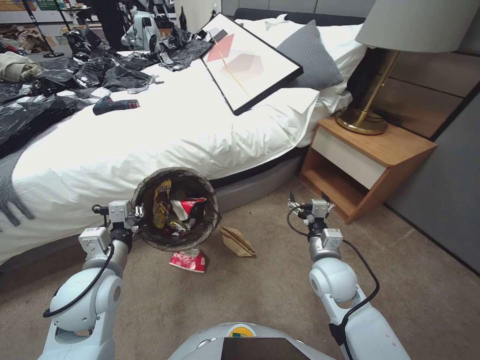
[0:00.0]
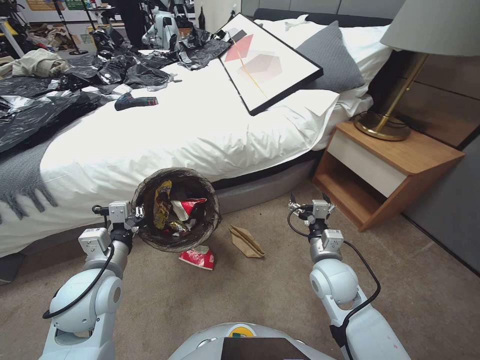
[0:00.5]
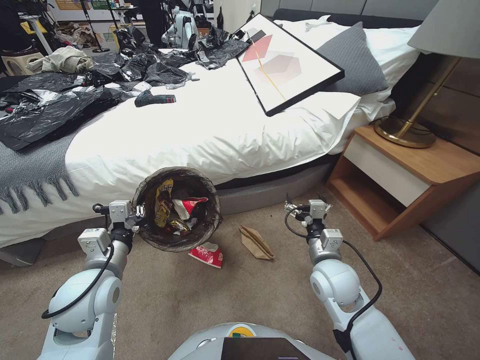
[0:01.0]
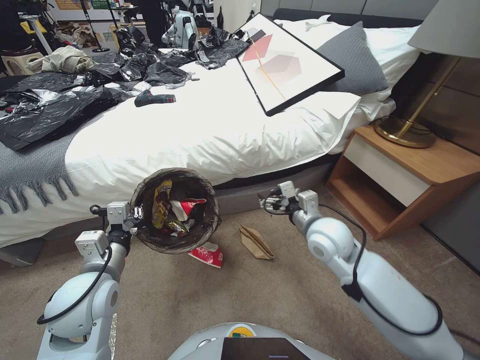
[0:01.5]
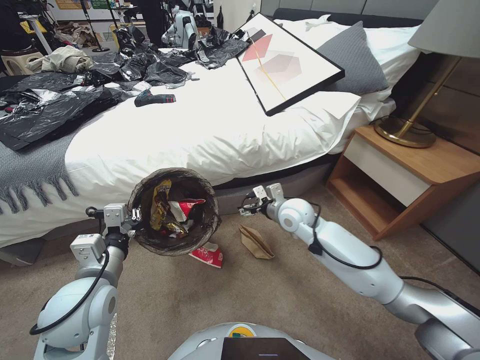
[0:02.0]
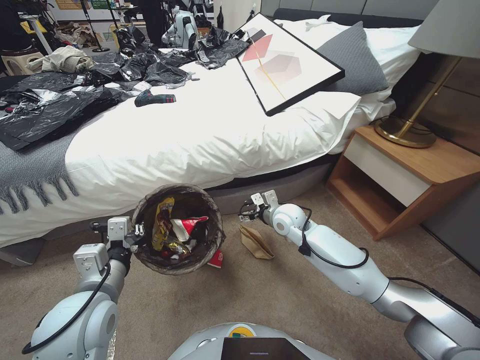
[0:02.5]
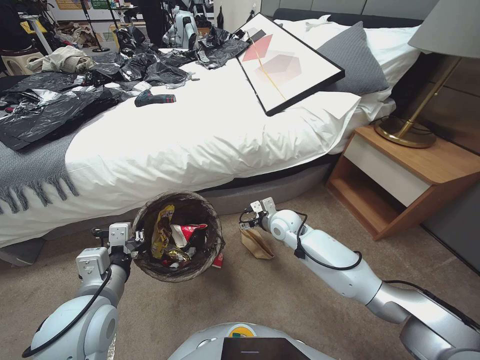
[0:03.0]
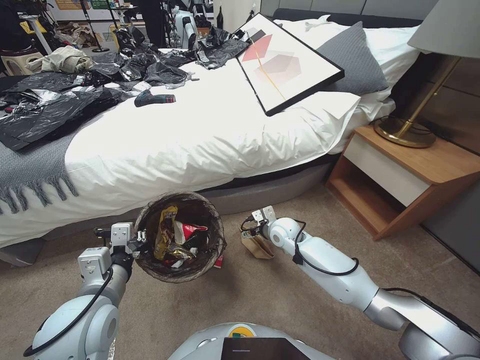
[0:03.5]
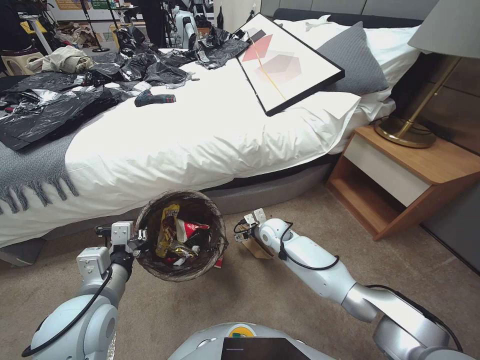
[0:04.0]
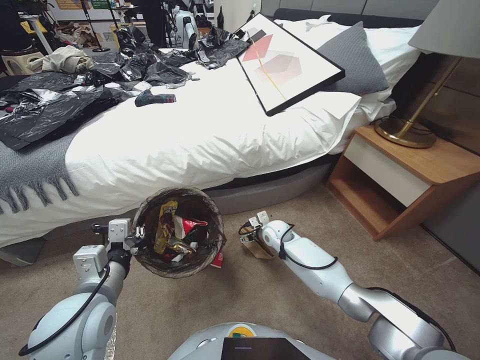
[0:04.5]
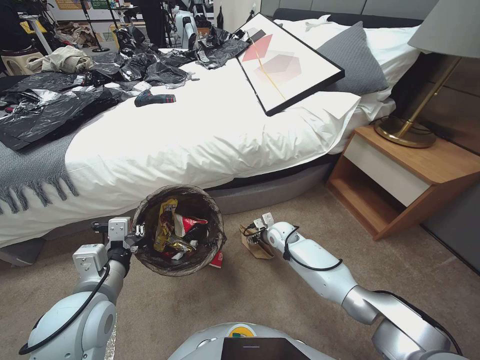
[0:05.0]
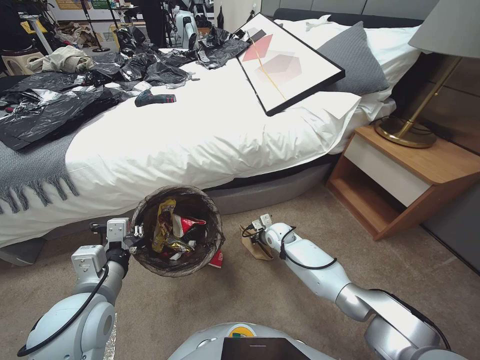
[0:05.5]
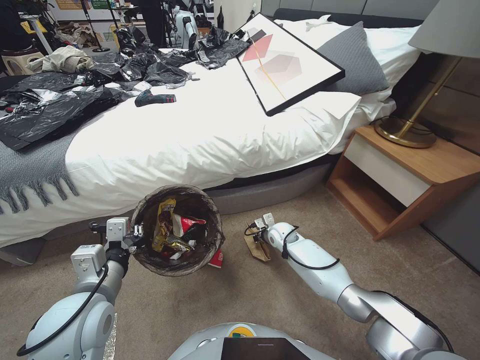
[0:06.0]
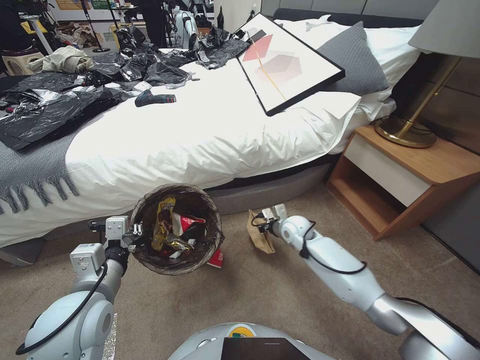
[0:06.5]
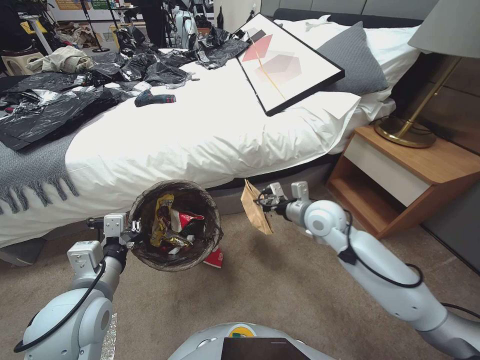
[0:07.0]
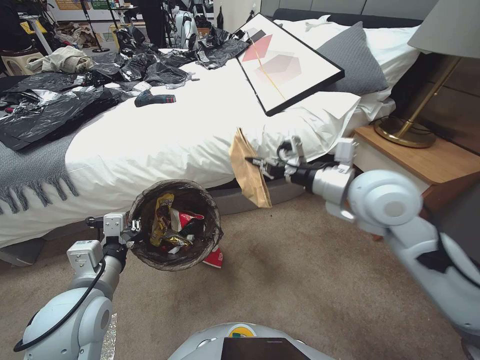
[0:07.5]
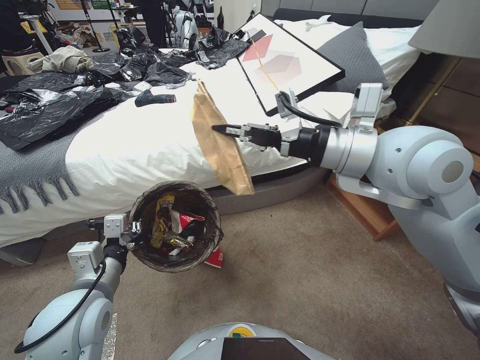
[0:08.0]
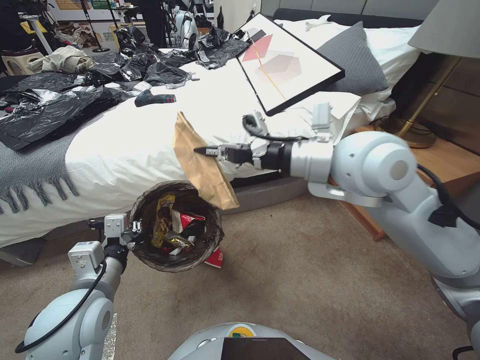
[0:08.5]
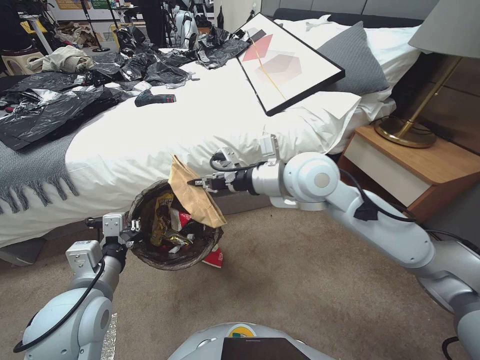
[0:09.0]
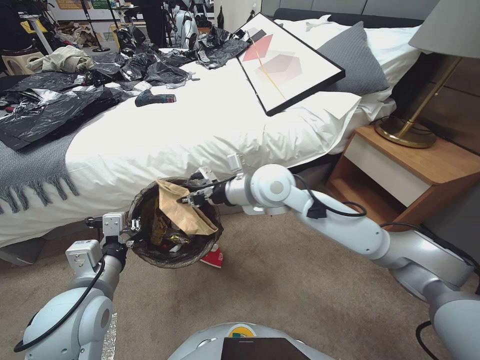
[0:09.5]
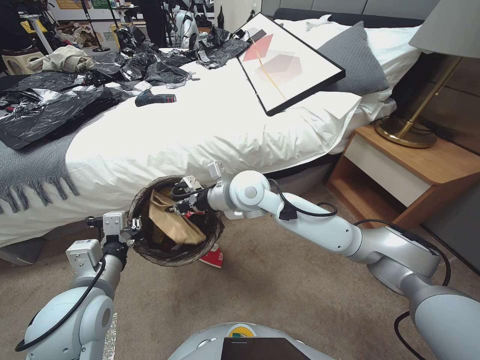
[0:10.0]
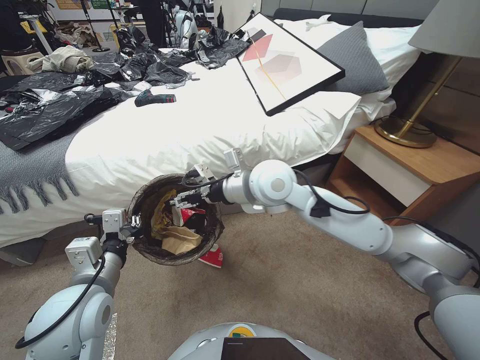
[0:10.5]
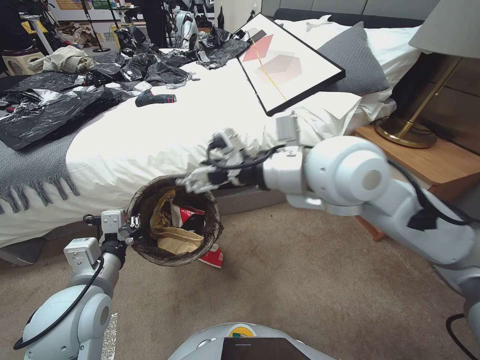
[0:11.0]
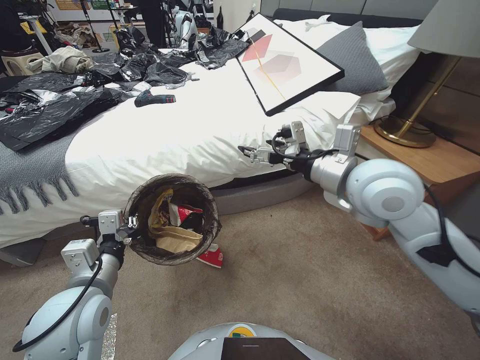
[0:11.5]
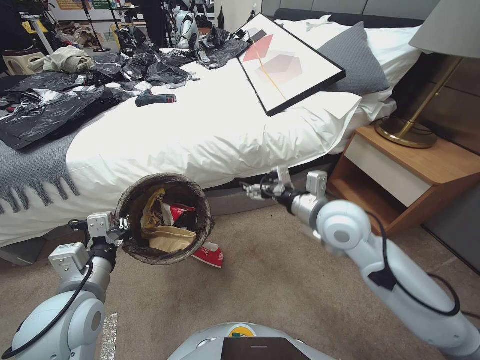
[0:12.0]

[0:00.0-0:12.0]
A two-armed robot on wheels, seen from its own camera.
Task of the whole recording: Pick up the trash bin, then pick up the garbage from the floor and place it into the trash bin.
0:00.0 to 0:02.0: The right gripper travels forward and upward by some 15 cm.
0:02.0 to 0:04.0: The right gripper moves downward, approximately 15 cm.
0:04.0 to 0:06.0: The right gripper is displaced downward by about 5 cm, and closes up.
0:06.0 to 0:08.0: The right gripper goes some 50 cm upward.
0:08.0 to 0:10.0: The right gripper is displaced to the left, downward and forward by some 25 cm.
0:10.0 to 0:12.0: The right gripper goes approximately 20 cm to the right and backward, and opens up.

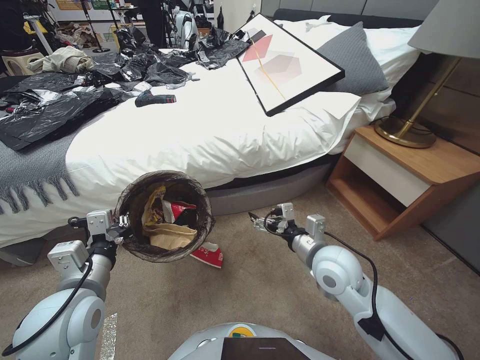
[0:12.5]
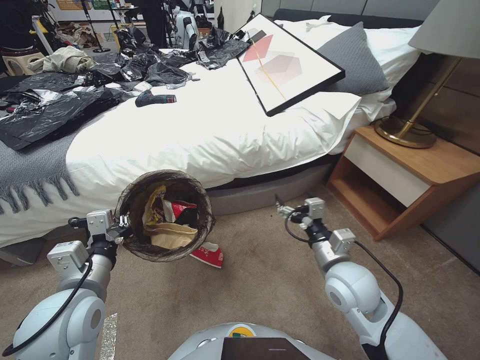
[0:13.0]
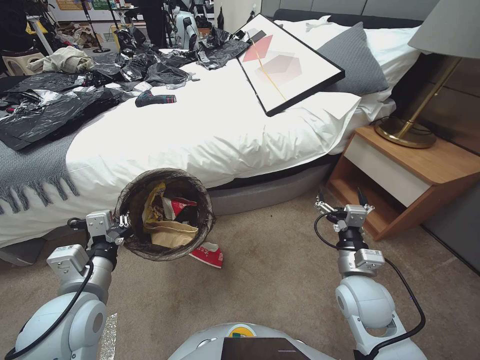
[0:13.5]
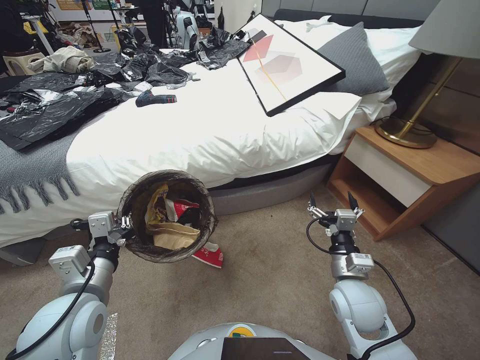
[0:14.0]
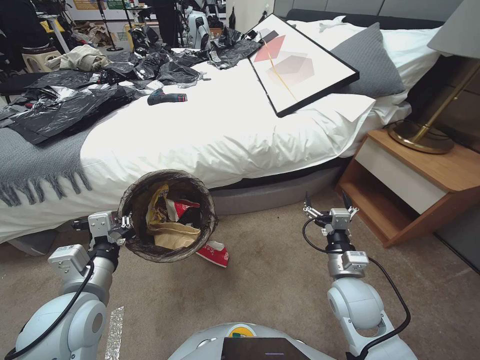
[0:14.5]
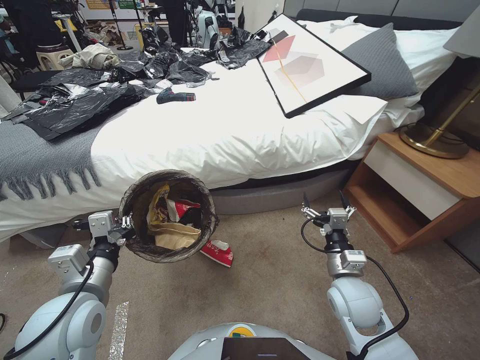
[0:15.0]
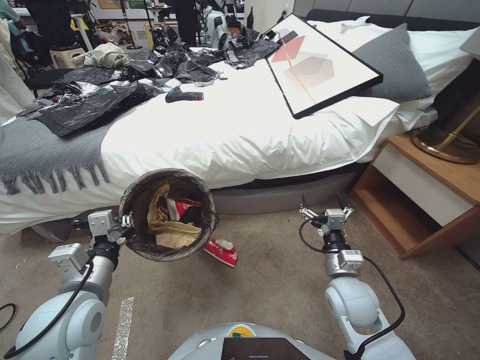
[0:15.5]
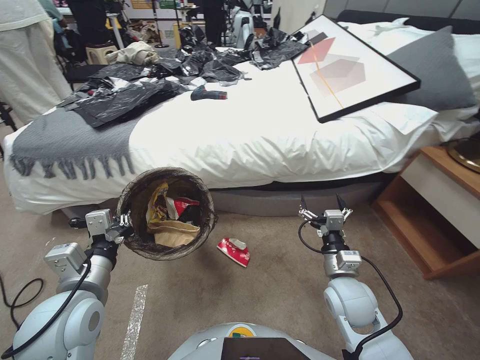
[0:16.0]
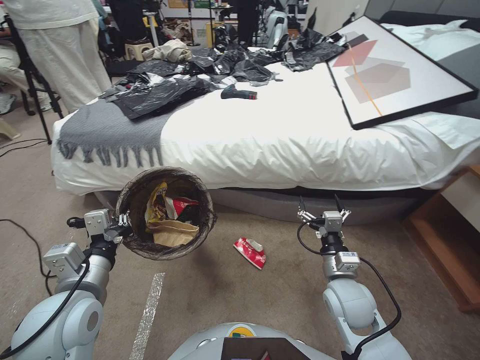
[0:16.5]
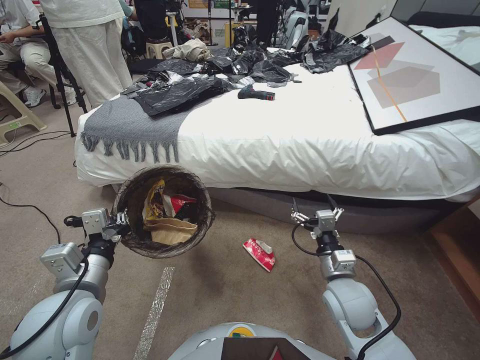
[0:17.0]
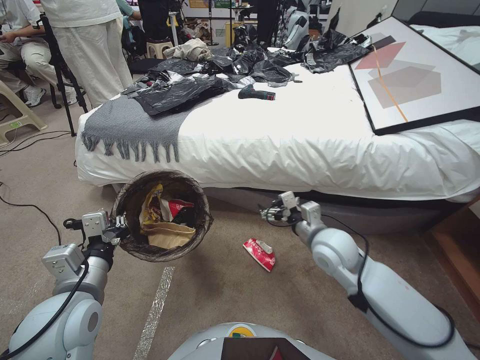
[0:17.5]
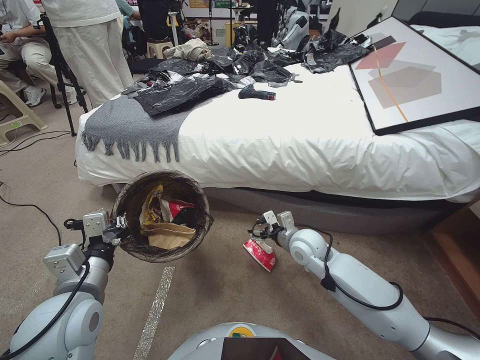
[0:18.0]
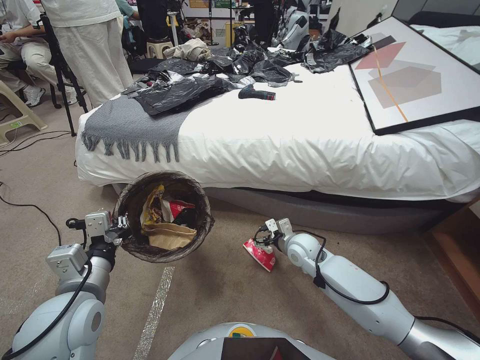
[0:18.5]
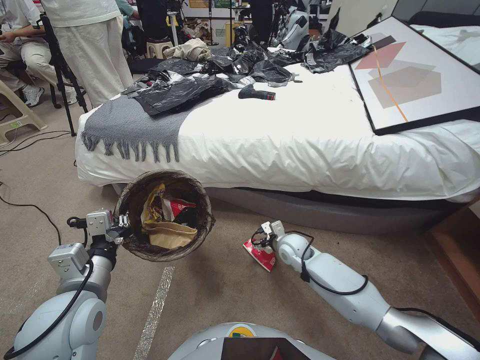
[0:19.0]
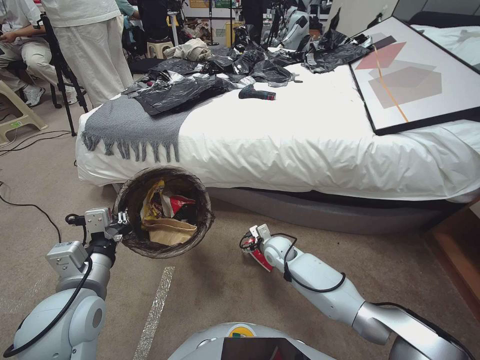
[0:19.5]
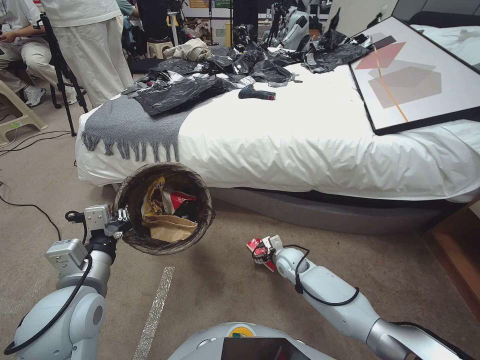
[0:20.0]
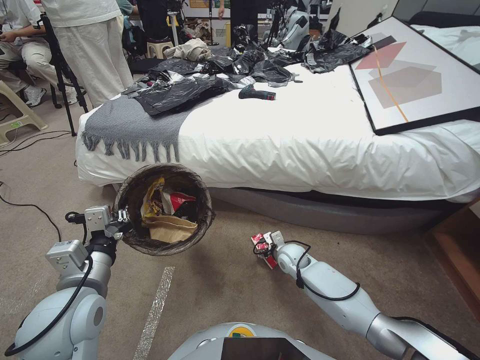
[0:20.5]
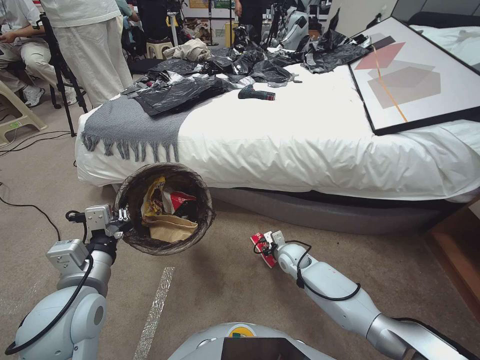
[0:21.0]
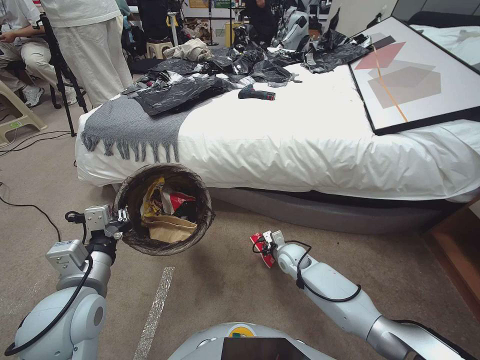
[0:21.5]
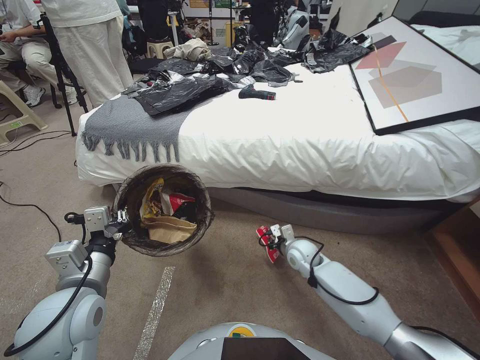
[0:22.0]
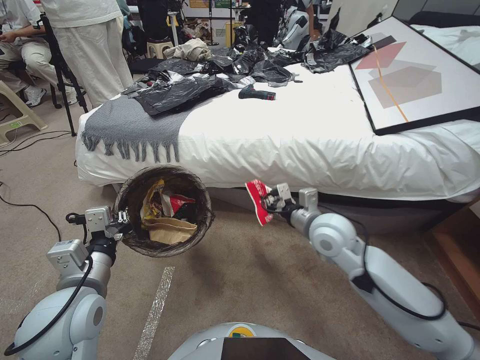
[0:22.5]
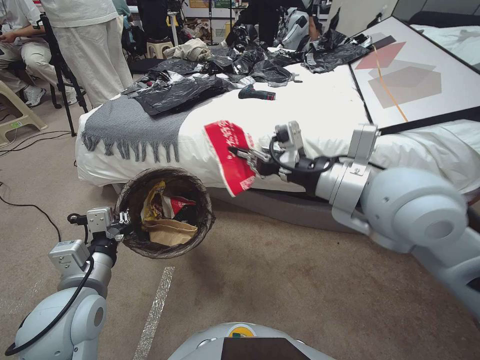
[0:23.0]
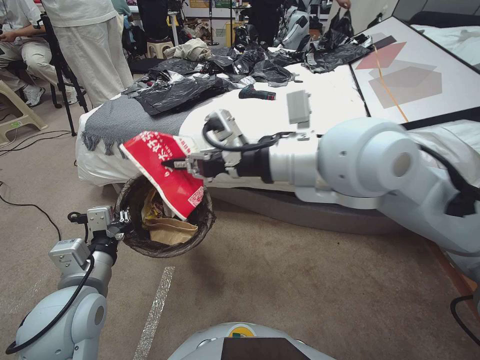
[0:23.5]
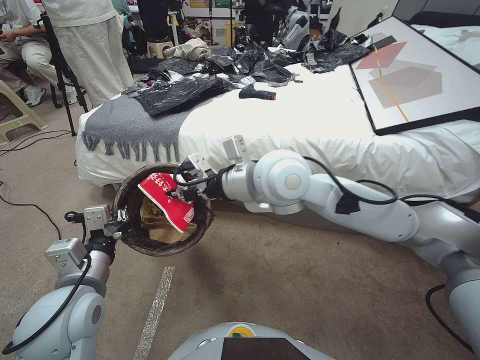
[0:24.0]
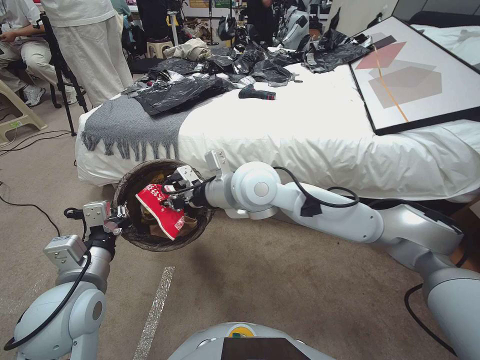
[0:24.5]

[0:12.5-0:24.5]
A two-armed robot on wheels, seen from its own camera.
Task of the whole recording: Pick up the trash bin, then pick up the garbage from the floor and place it into the trash bin.
0:12.5 to 0:14.5: The right gripper heads downward and backward, covering roughly 10 cm.
0:16.5 to 0:18.5: The right gripper shifts about 15 cm forward.
0:18.5 to 0:20.5: The right gripper is displaced downward by some 10 cm.
0:20.5 to 0:22.5: The right gripper is displaced upward by some 25 cm, and closes its fingers.
0:22.5 to 0:24.5: The right gripper goes roughly 25 cm to the left and upward.

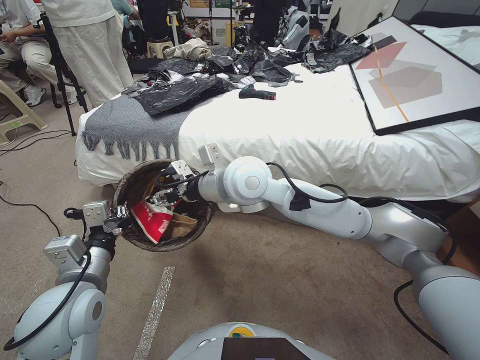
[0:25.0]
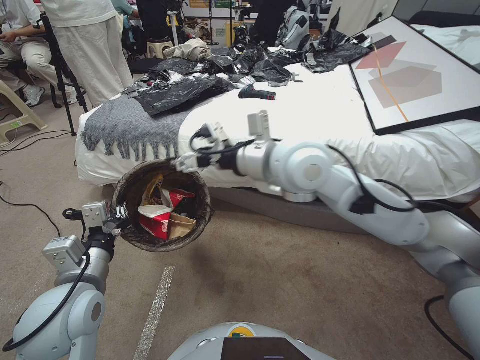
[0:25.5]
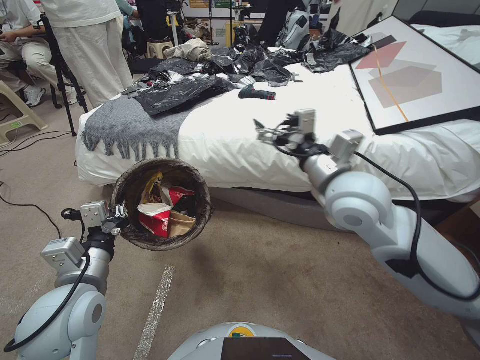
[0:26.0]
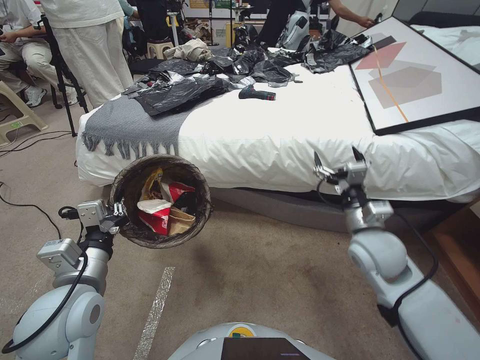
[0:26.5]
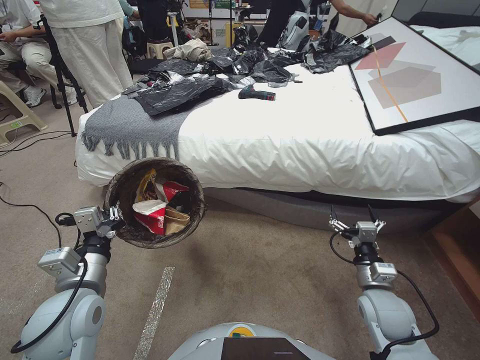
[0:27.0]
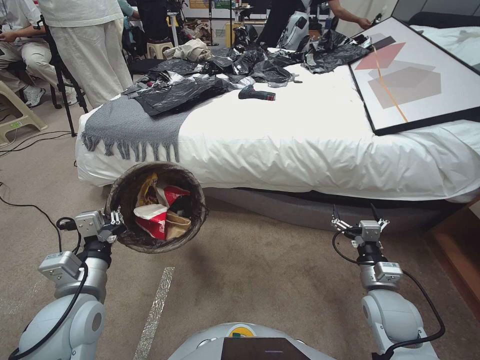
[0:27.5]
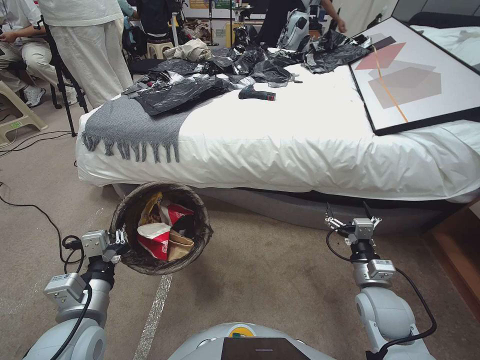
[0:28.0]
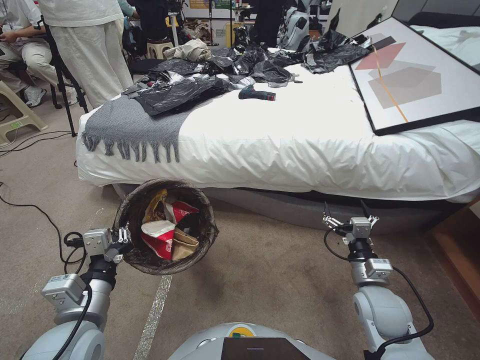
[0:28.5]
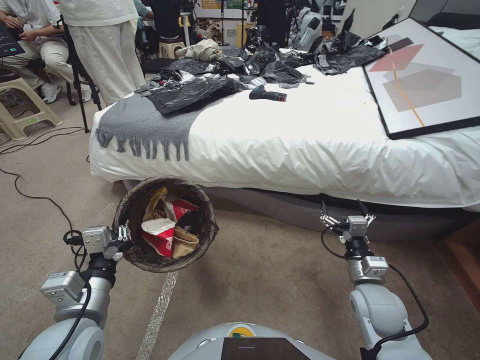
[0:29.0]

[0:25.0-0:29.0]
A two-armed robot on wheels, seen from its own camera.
Task of the whole recording: Pick up the trash bin, then pick up the garbage from the floor and place it into the trash bin.
0:25.0 to 0:27.0: The right gripper shifts approximately 50 cm to the right, downward and backward, and opens.
